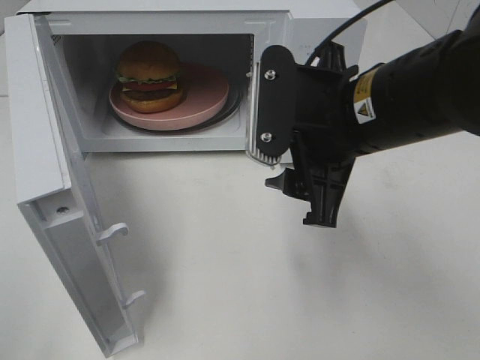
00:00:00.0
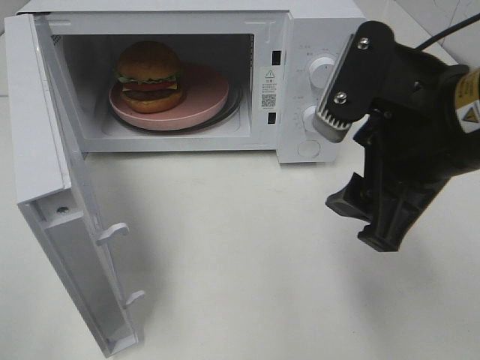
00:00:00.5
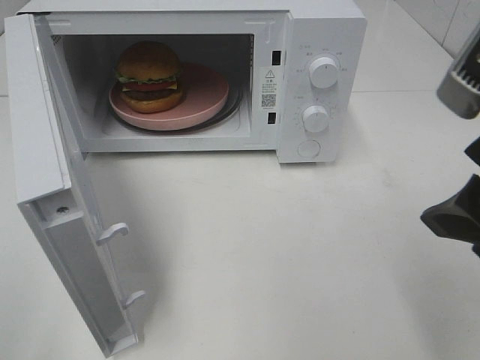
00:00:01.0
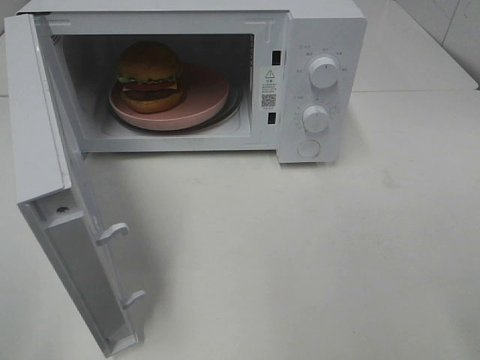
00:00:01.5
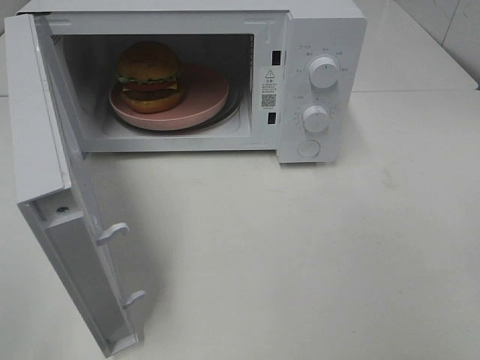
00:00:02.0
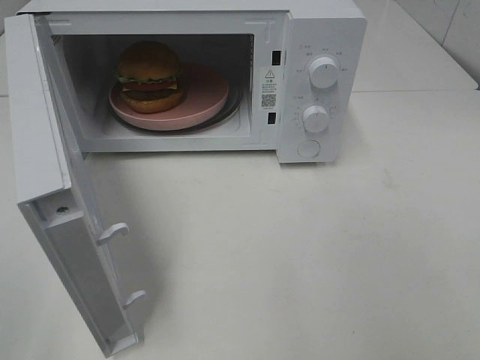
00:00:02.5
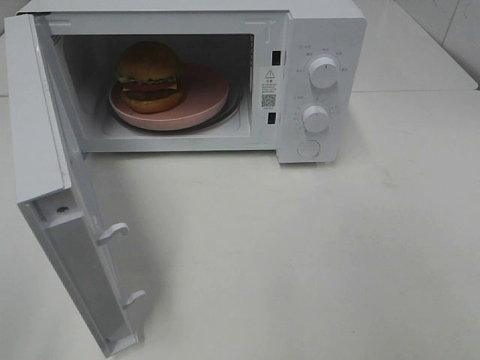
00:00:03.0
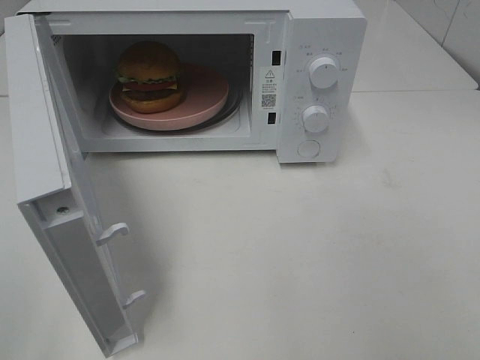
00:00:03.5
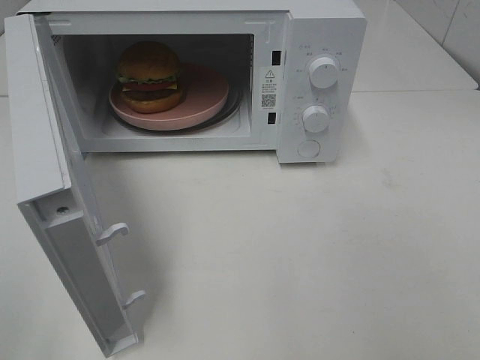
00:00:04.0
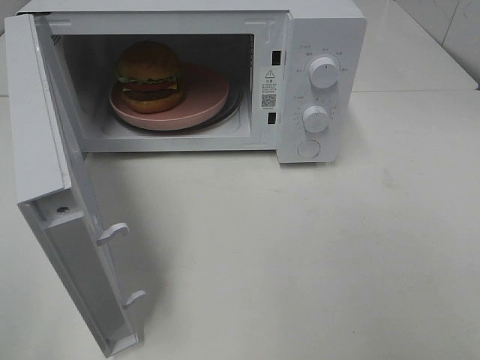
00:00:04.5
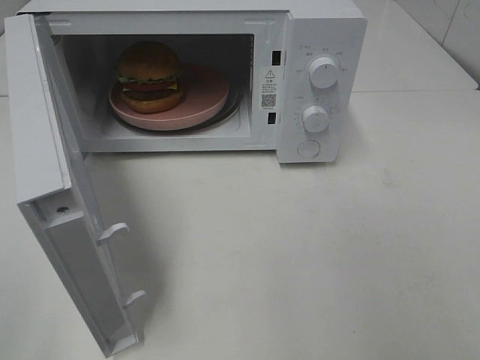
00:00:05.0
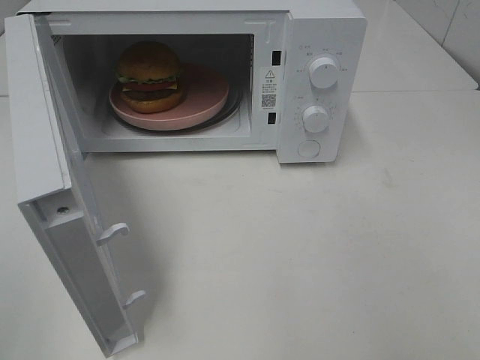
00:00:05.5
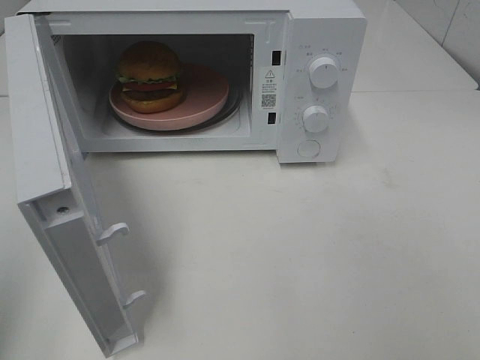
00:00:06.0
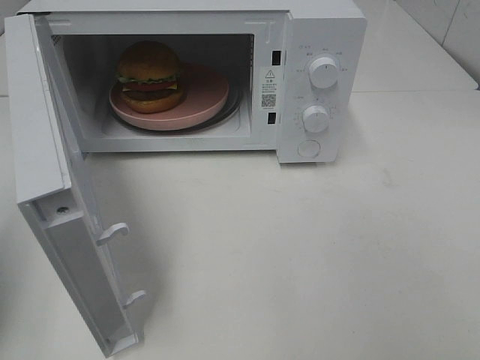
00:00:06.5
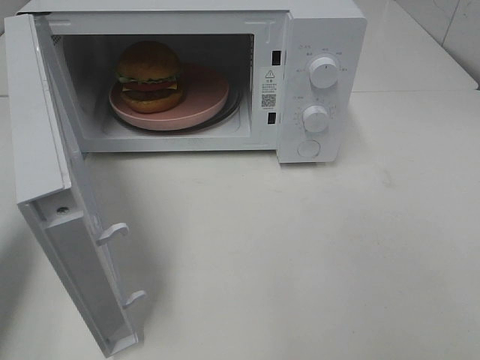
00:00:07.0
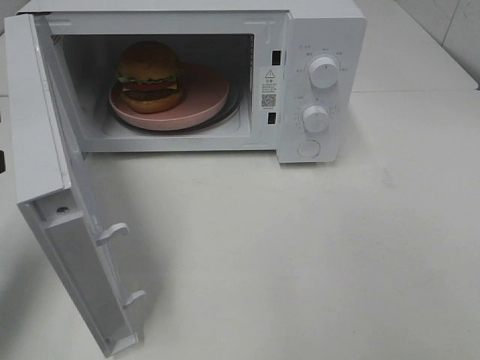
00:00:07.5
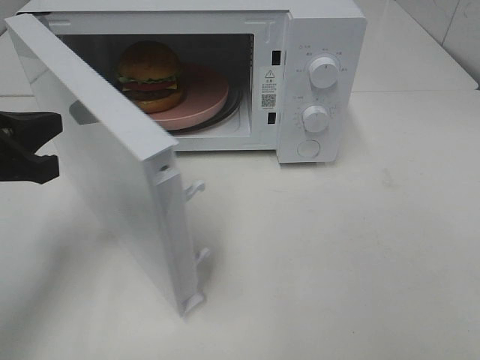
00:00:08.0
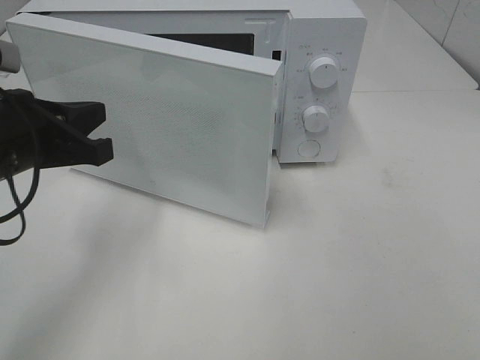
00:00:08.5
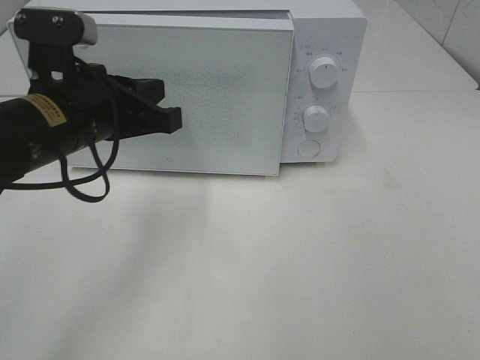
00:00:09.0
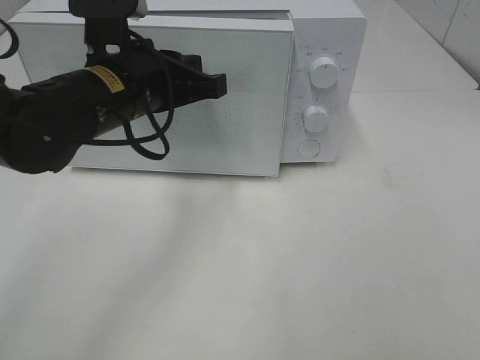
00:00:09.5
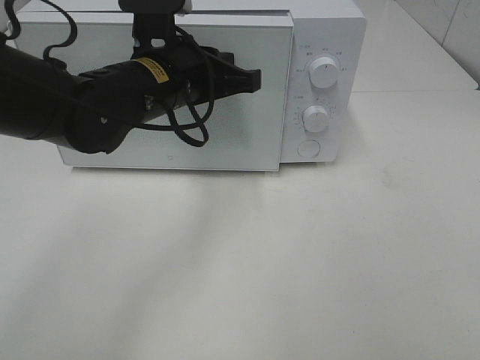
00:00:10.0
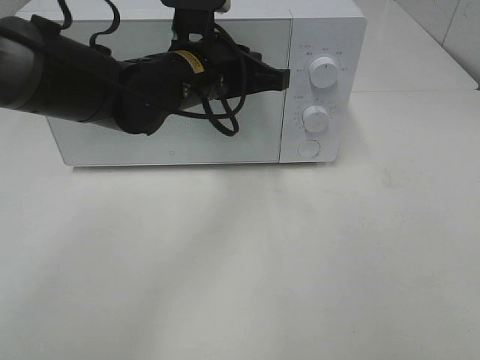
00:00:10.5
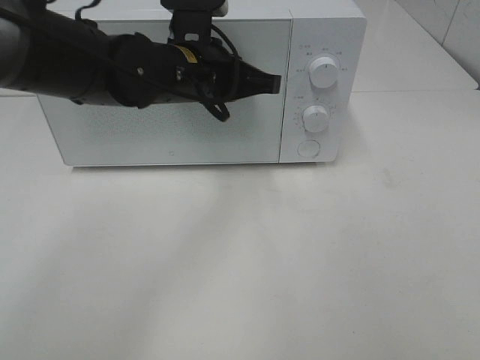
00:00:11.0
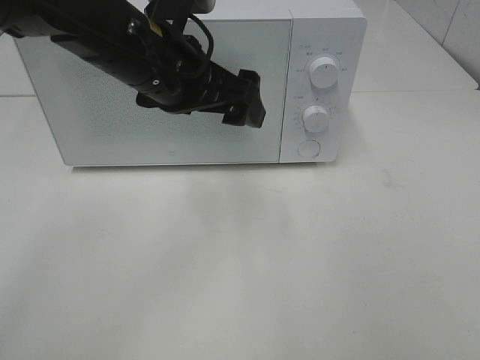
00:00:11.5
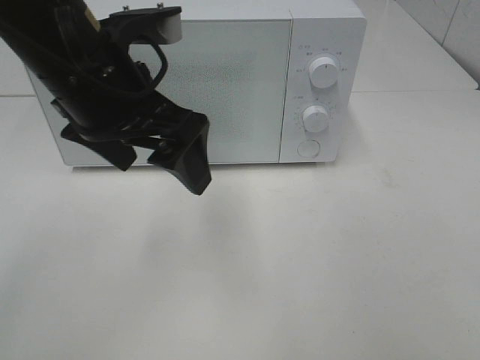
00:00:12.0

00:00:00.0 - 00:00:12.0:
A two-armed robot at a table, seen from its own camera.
Task of the whole recording: Heat the burger.
Step, 00:00:00.0 - 00:00:11.0: Left hand: close the microwave door.
00:00:00.0 - 00:00:02.0: The right gripper goes roughly 25 cm to the right and backward.
00:00:06.0 - 00:00:08.0: The left gripper moves forward, downward and to the right, approximately 20 cm.
00:00:08.0 - 00:00:10.0: The left gripper shifts roughly 20 cm to the right and forward.
00:00:10.0 - 00:00:12.0: The left gripper moves backward and upward, approximately 10 cm, and opens up.

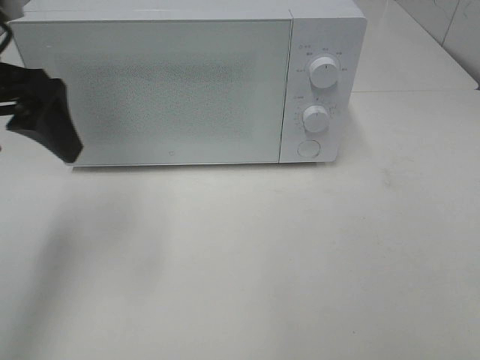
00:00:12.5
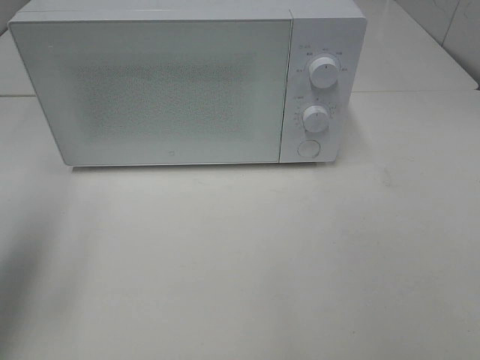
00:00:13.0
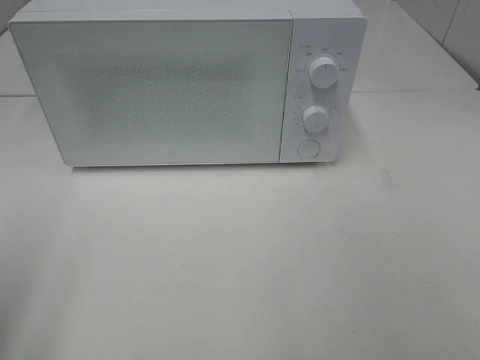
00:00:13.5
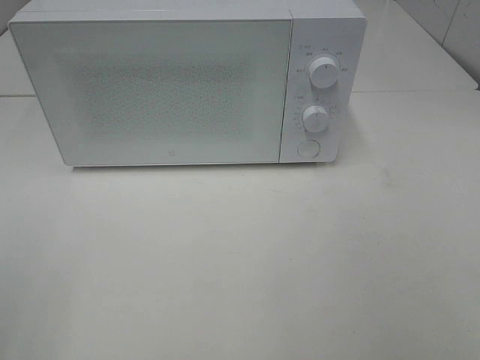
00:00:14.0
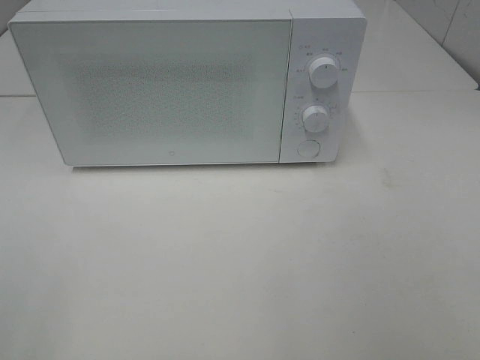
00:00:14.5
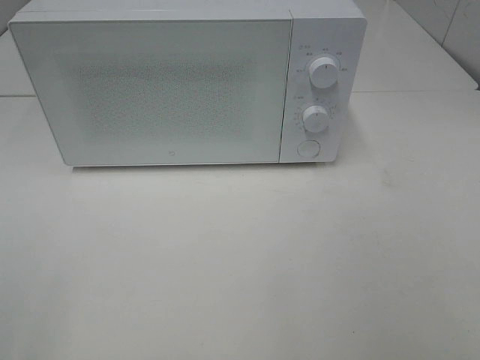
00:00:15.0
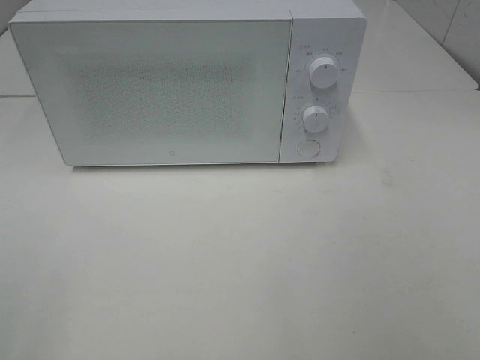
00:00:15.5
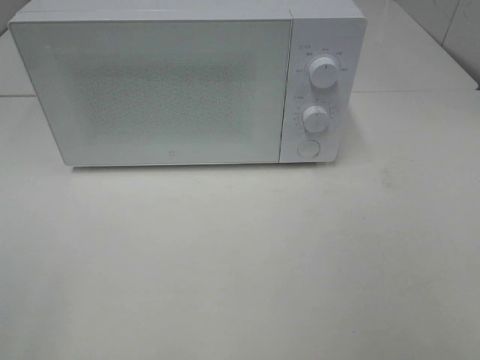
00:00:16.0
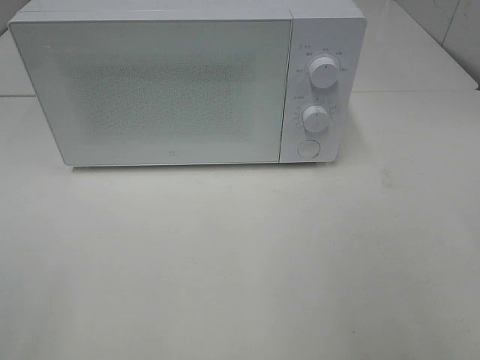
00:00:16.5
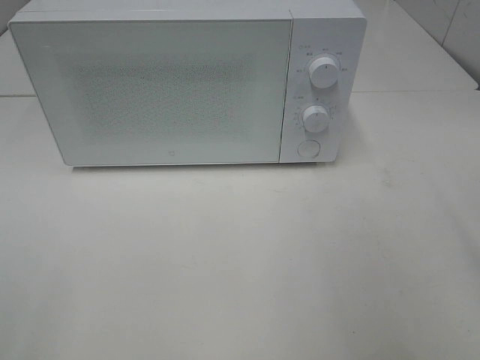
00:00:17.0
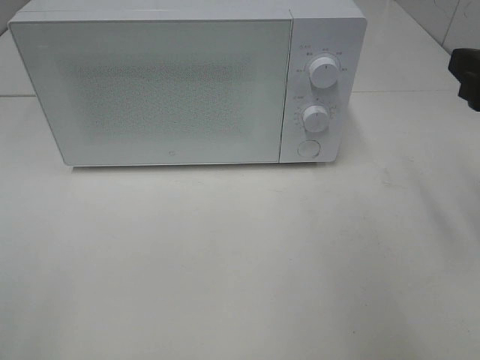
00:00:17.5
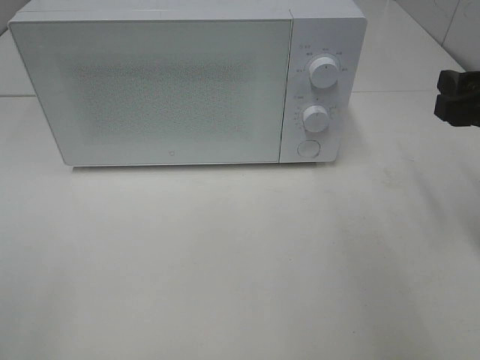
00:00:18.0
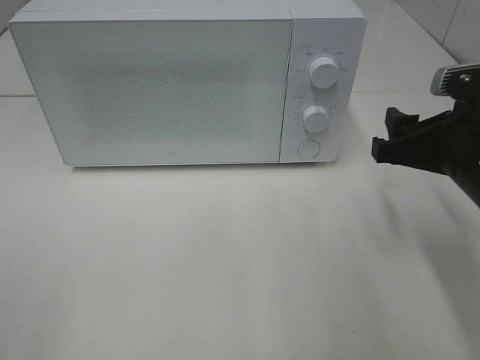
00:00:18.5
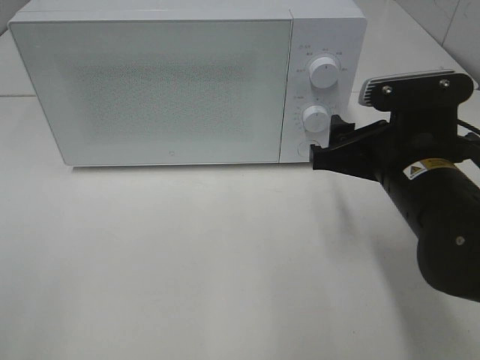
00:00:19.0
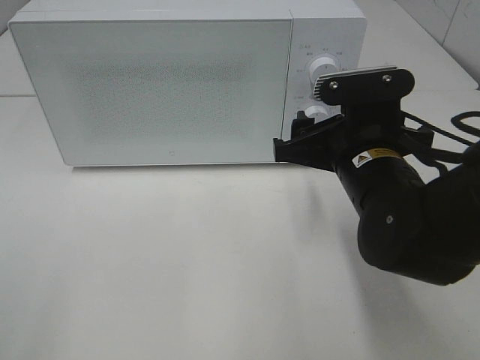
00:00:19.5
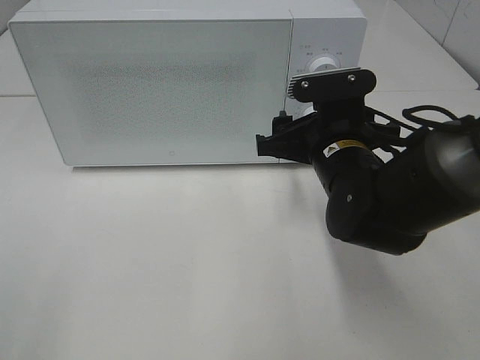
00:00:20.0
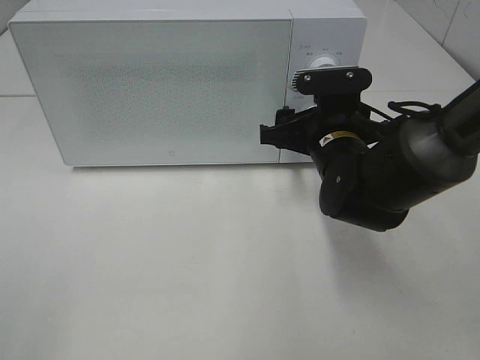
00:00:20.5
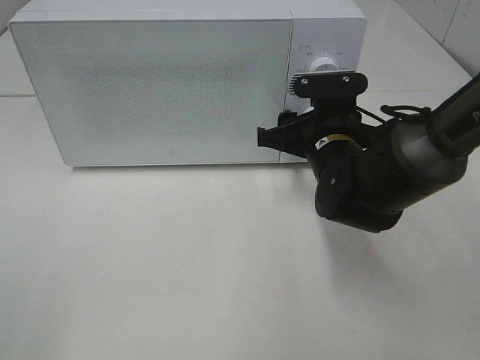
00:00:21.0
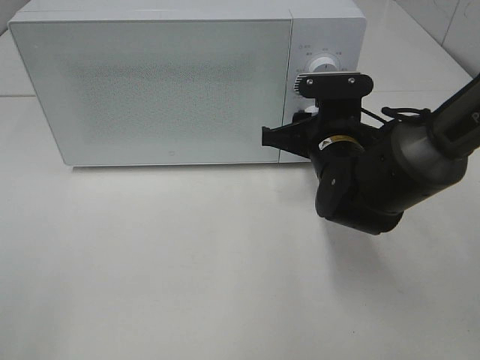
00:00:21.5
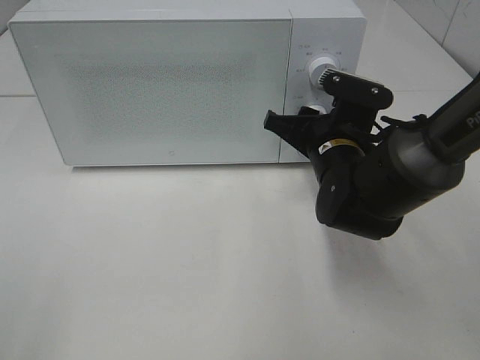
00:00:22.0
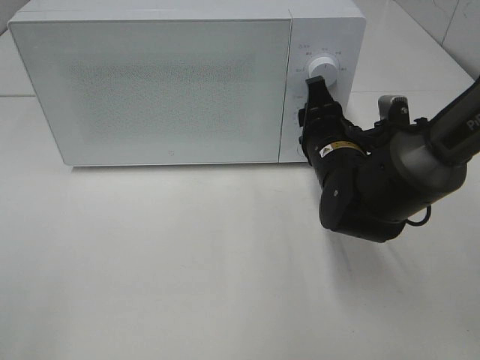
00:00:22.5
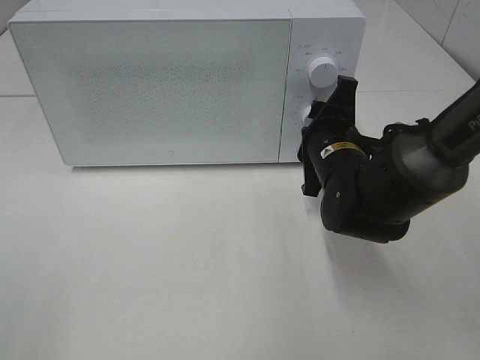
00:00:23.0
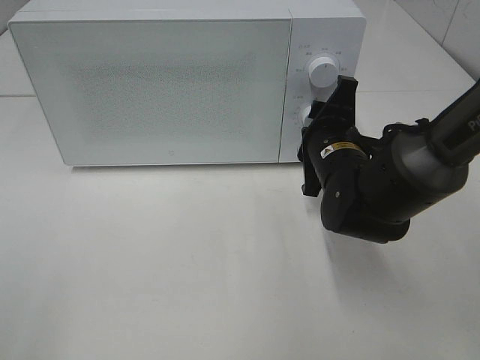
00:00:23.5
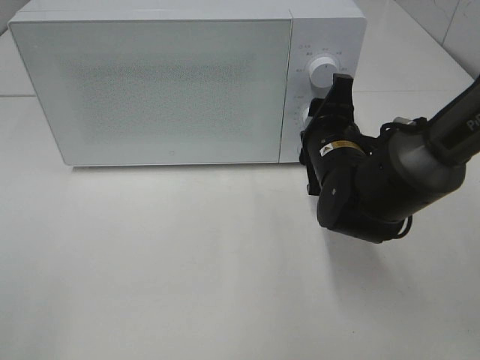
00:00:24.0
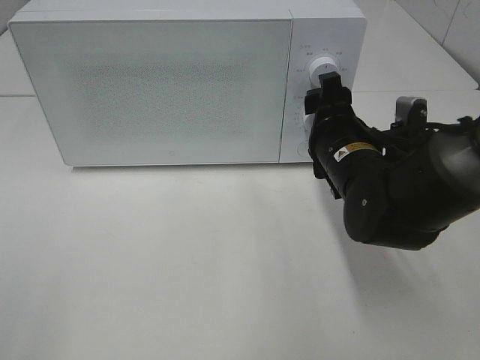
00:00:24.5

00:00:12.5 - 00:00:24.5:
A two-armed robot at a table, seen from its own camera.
Task of the whole recording: Heat the burger.
Step, 00:00:12.5 - 00:00:24.0: Right hand: twist timer button.
00:00:12.5 - 00:00:14.5: The left gripper is displaced backward by roughly 25 cm.
00:00:16.5 - 00:00:18.5: The right gripper travels forward, downward and to the left by approximately 20 cm.
00:00:18.5 - 00:00:20.5: The right gripper moves to the left, forward and downward, about 15 cm.

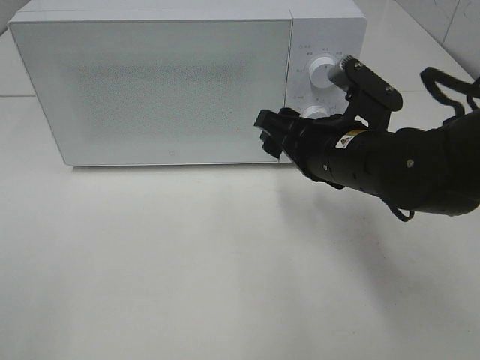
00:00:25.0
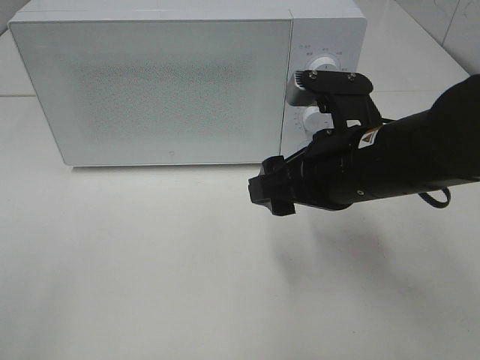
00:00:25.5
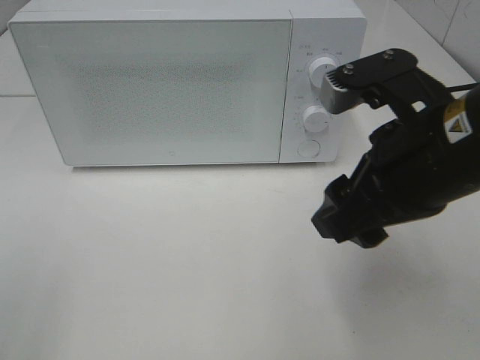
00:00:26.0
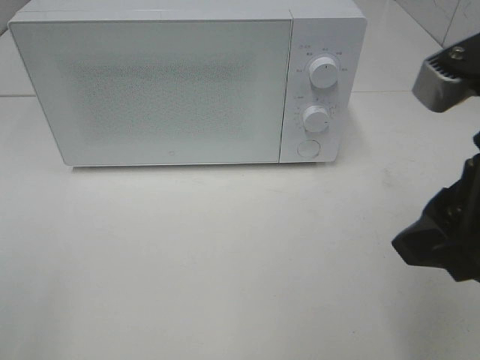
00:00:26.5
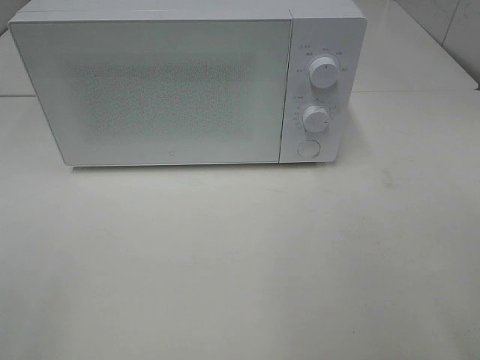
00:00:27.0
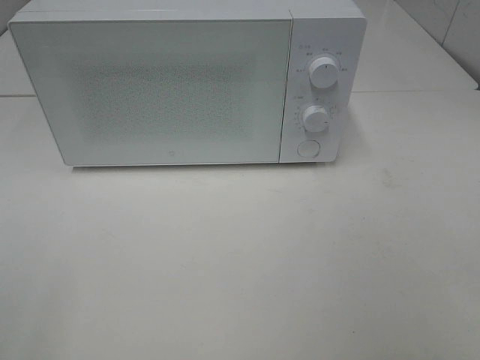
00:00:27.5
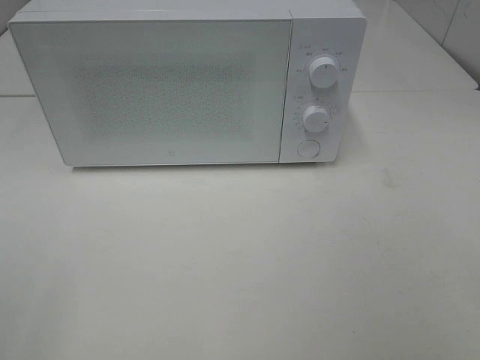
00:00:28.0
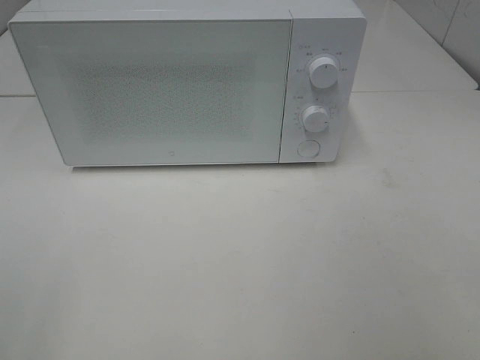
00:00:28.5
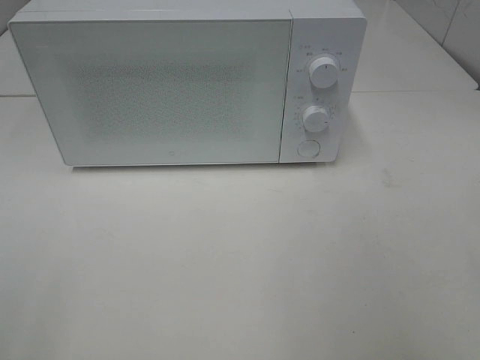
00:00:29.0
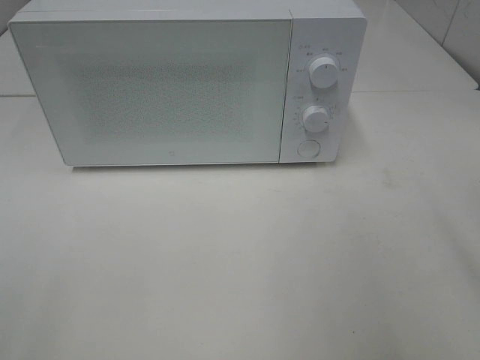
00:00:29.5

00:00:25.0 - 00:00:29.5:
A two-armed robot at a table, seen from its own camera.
Task of the whole recording: Heat the burger.
00:00:25.0 - 00:00:27.0: The right gripper heads backward, upward and to the right, covering about 25 cm.
